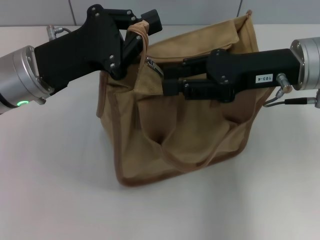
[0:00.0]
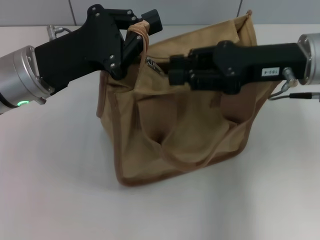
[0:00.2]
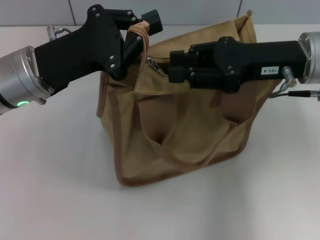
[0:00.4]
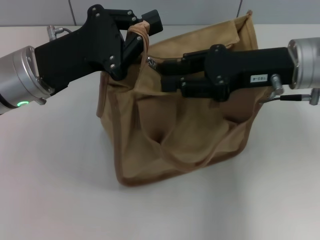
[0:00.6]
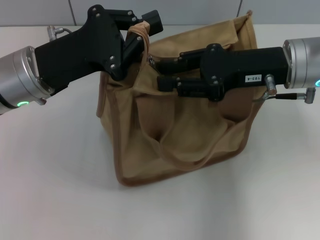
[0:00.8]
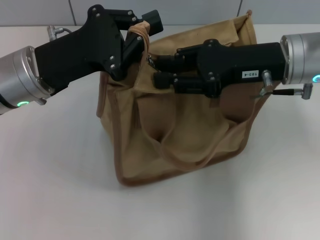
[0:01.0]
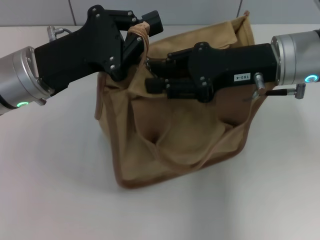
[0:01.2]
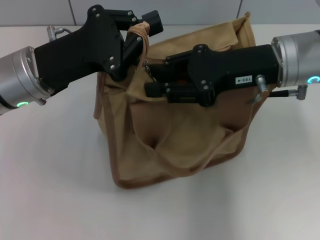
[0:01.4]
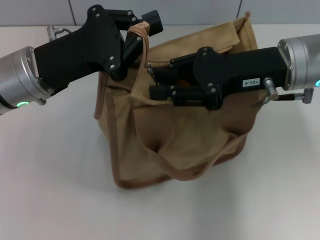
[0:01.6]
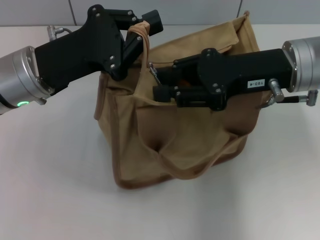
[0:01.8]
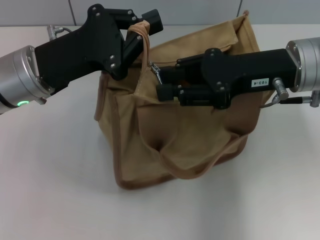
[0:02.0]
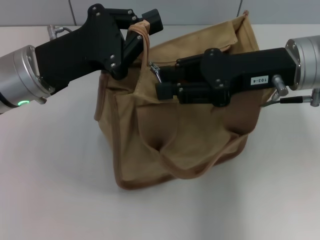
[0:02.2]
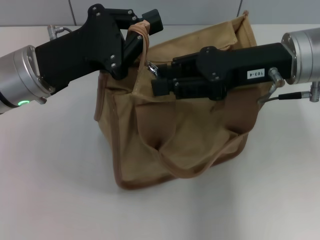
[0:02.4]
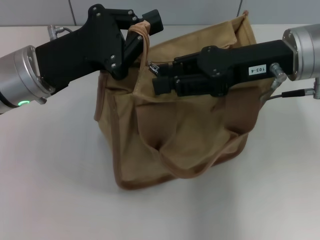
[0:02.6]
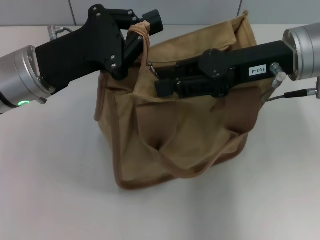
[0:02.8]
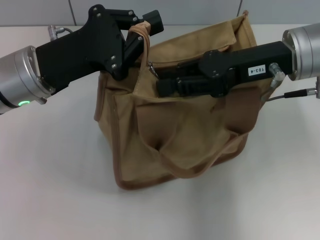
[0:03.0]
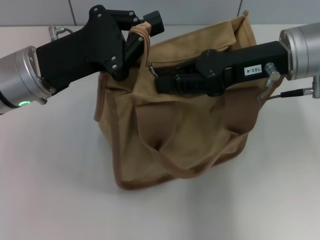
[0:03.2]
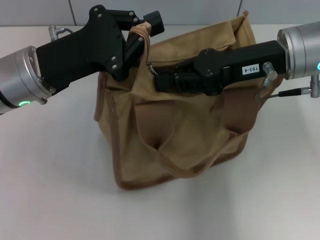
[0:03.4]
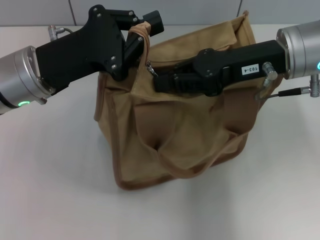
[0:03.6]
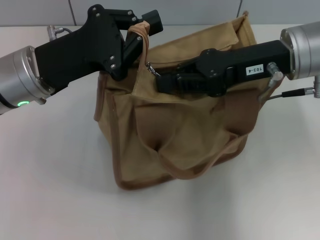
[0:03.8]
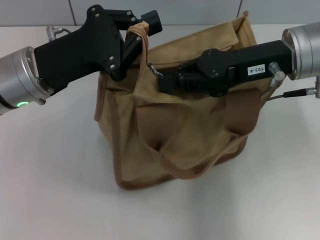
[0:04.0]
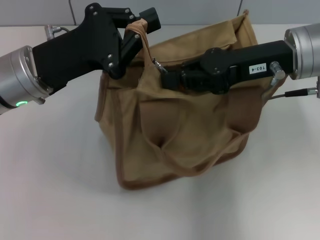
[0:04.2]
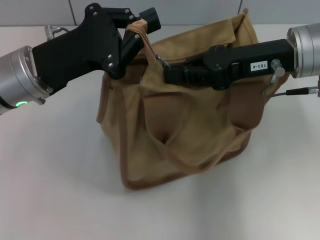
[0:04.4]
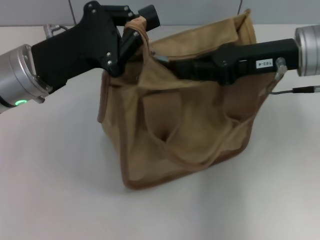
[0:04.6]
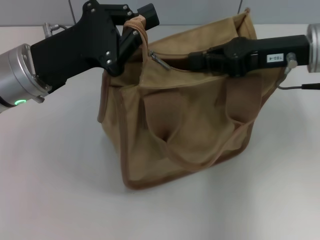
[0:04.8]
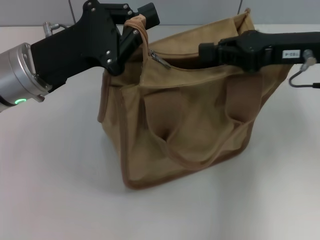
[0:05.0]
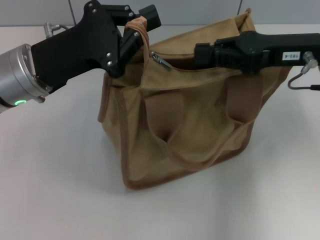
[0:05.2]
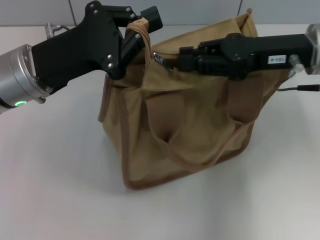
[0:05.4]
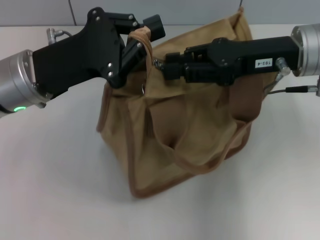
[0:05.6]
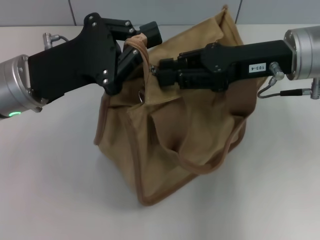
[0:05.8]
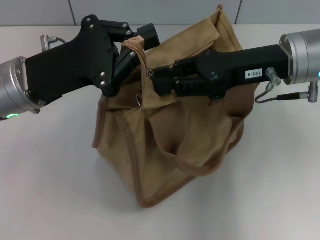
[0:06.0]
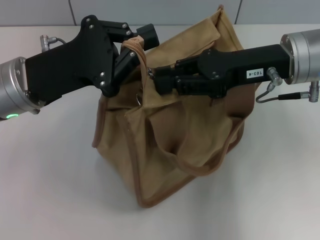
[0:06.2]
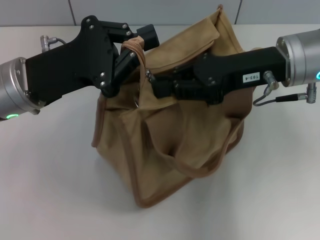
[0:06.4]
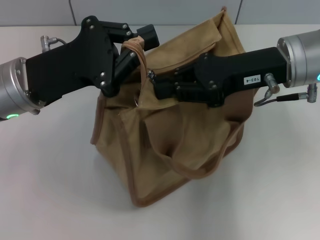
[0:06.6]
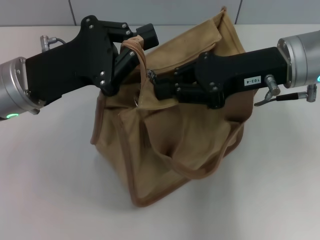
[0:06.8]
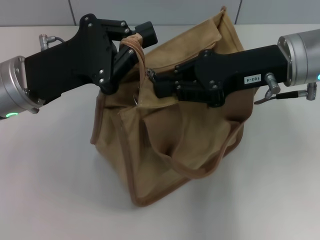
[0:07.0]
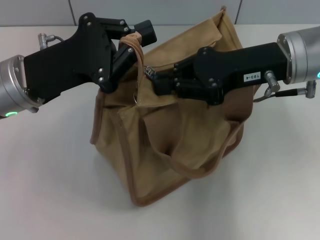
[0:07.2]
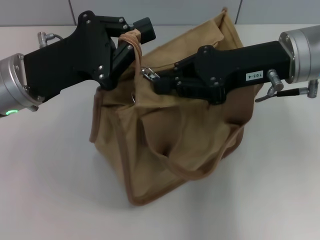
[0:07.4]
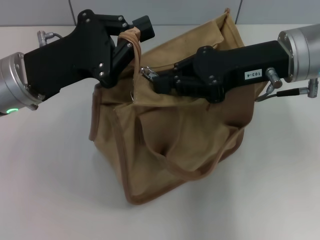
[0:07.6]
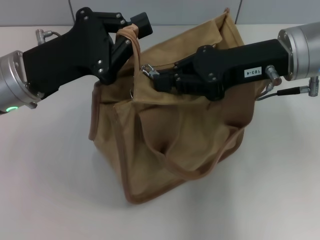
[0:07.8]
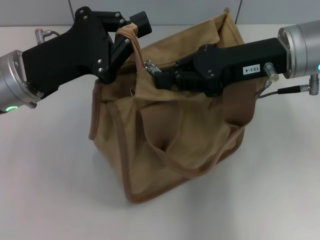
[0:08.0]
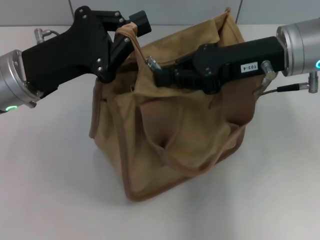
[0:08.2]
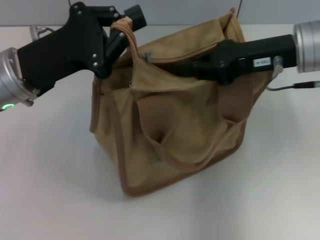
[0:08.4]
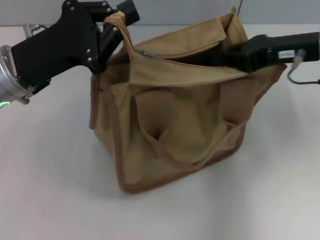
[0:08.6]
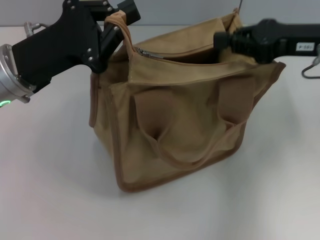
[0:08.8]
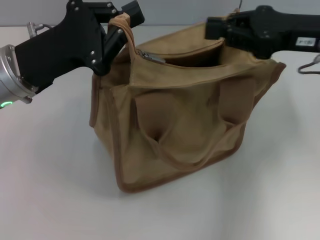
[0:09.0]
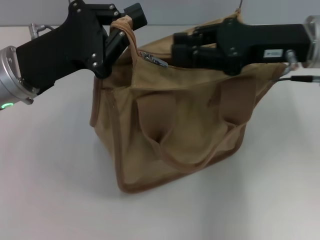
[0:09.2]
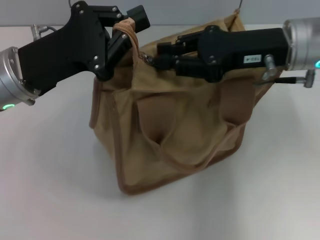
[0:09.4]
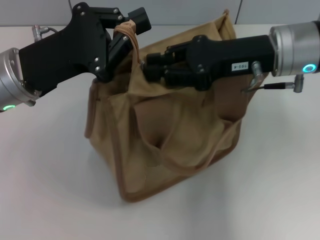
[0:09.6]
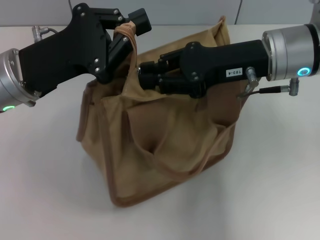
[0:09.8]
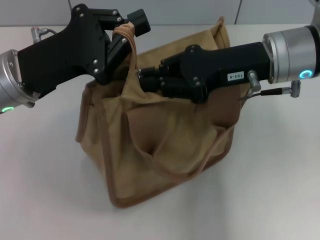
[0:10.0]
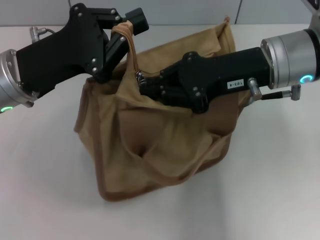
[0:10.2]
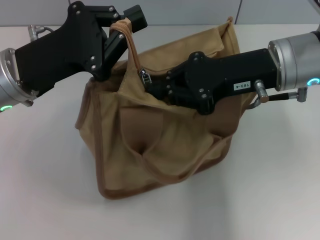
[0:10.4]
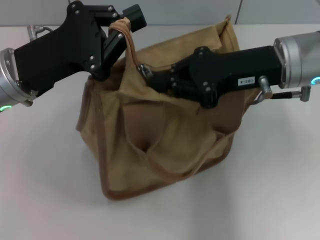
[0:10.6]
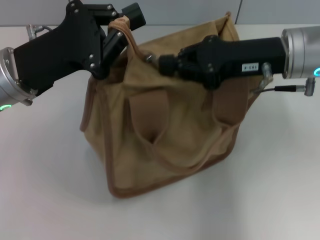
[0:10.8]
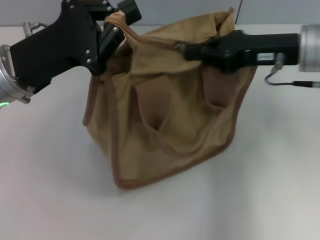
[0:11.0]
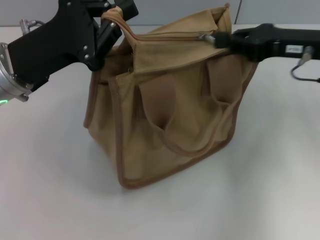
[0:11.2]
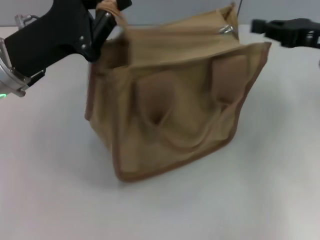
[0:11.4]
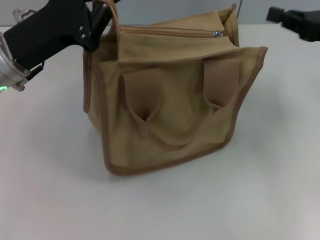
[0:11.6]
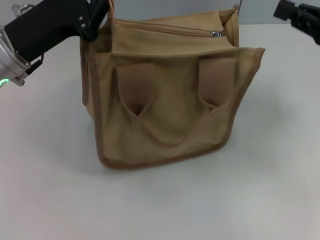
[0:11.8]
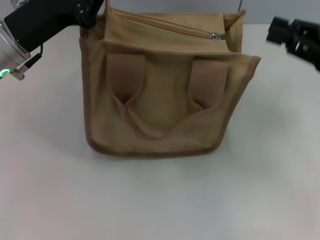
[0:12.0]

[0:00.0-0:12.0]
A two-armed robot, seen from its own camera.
Step, 0:00.0 to 0:12.0: Pull up the zipper with your right hand.
0:00.0 to 0:03.0: The grippers stay close to where they were, moving slightly.
0:03.0 to 0:04.4: The right gripper closes.
0:04.4 to 0:06.0: The right gripper opens its fingers.
0:06.0 to 0:07.6: The right gripper closes.
0:07.6 to 0:09.0: The right gripper goes approximately 5 cm to the right.
0:09.0 to 0:10.4: The right gripper is displaced to the left by approximately 5 cm.
0:10.4 to 0:12.0: The right gripper travels to the right by approximately 15 cm.

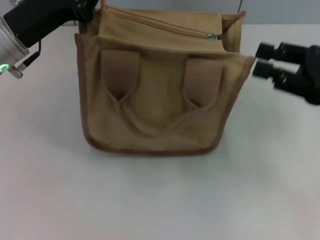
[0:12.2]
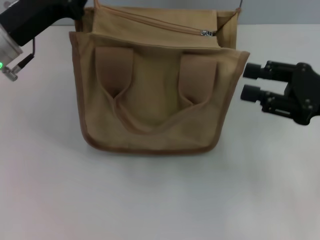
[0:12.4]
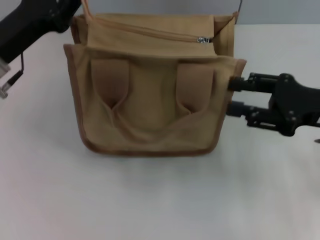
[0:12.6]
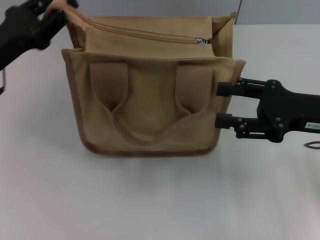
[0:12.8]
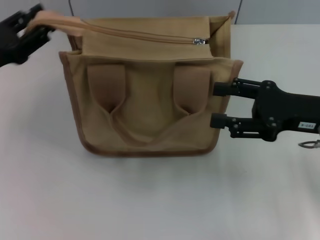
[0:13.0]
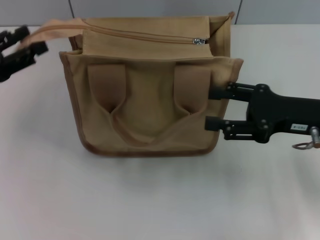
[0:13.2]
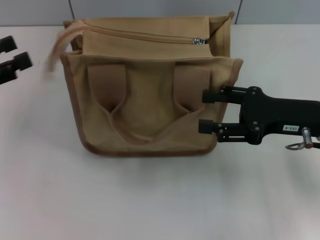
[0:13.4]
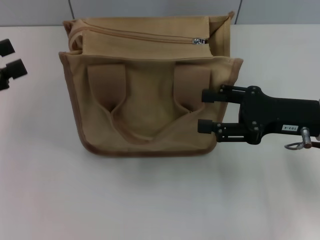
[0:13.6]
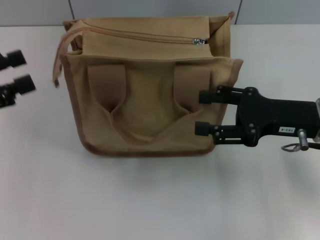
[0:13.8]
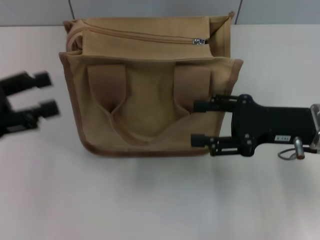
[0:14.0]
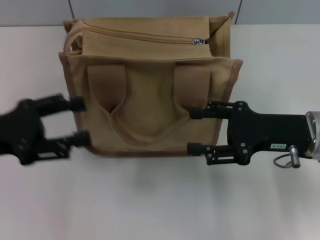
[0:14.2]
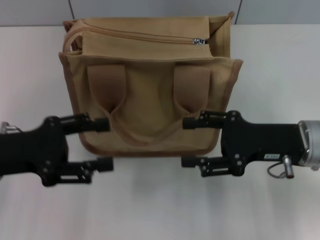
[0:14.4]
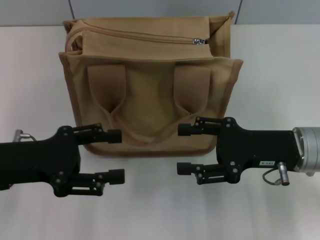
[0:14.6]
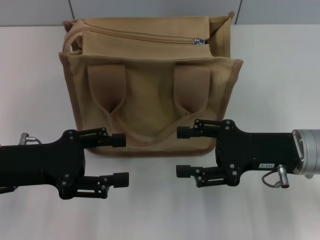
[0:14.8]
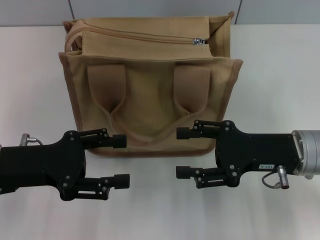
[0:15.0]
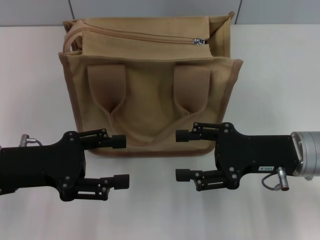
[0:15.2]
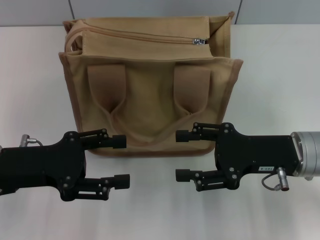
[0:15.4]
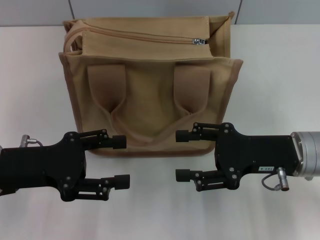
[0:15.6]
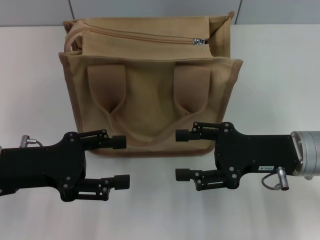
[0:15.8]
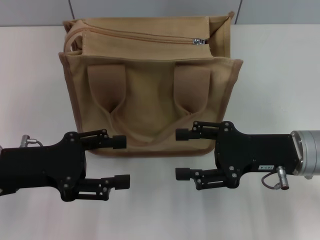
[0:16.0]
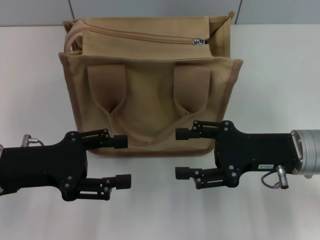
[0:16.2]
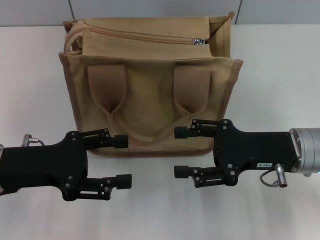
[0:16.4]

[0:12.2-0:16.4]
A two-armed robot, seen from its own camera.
Step, 0:12.2 to 0:13.2: Grab the zipper with your left hand.
0:12.2 to 0:13.6: The left gripper heads to the left and backward, covering roughly 15 cm, and opens; the right gripper shifts some 5 cm to the left, and opens up.
0:13.6 to 0:15.0: The left gripper heads to the right and downward, covering some 10 cm.
0:15.0 to 0:16.4: Both grippers stay put.

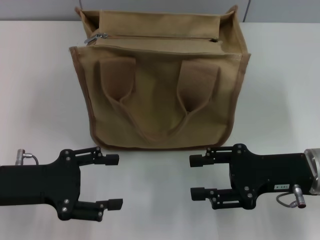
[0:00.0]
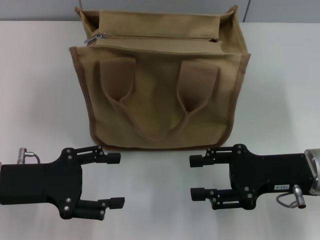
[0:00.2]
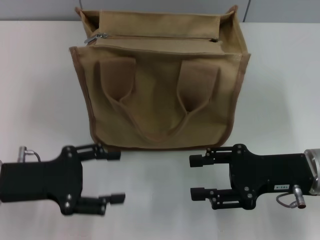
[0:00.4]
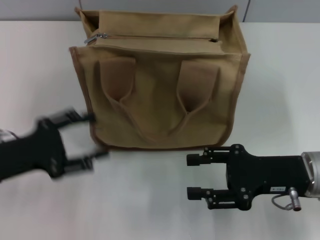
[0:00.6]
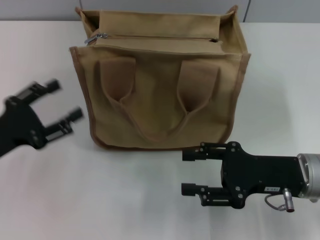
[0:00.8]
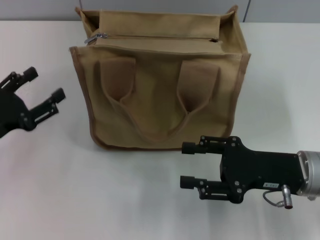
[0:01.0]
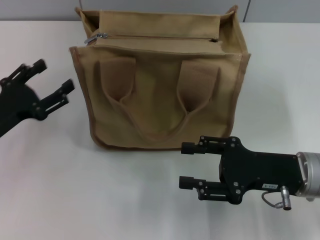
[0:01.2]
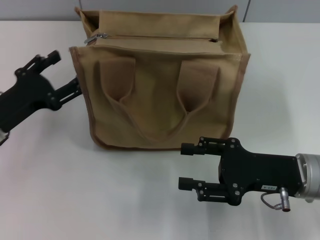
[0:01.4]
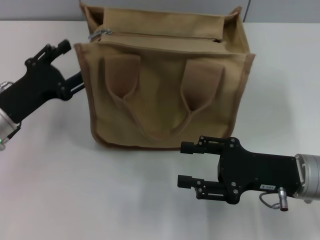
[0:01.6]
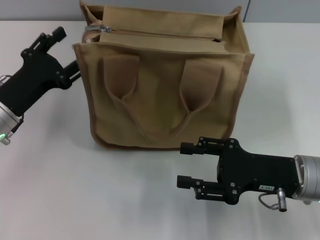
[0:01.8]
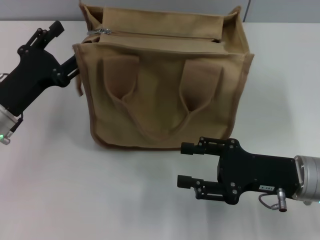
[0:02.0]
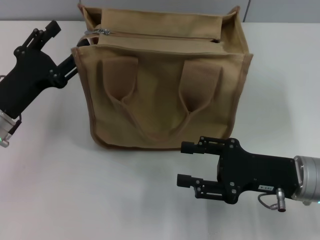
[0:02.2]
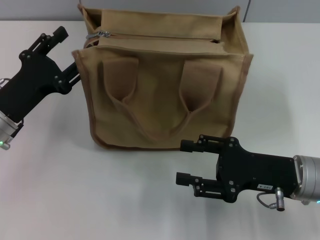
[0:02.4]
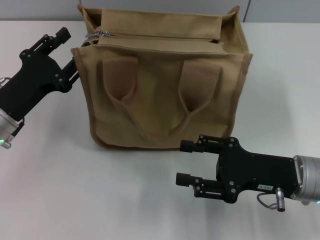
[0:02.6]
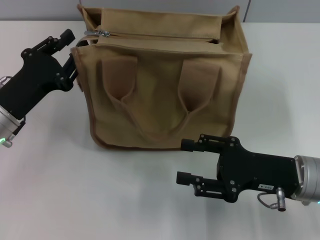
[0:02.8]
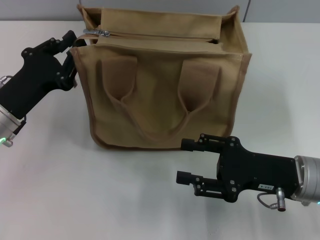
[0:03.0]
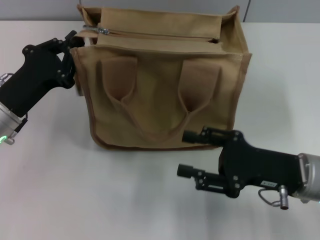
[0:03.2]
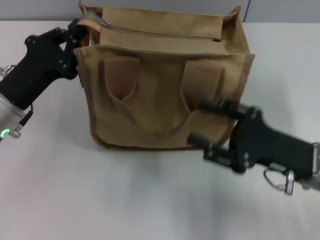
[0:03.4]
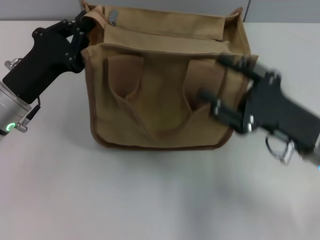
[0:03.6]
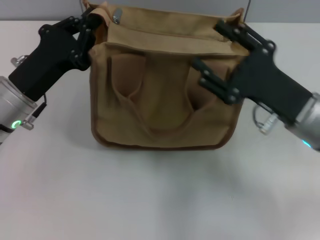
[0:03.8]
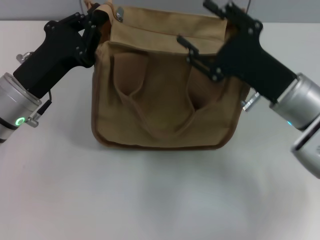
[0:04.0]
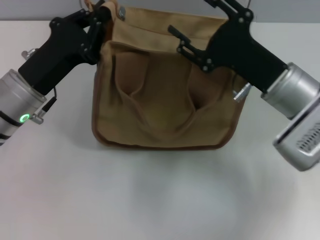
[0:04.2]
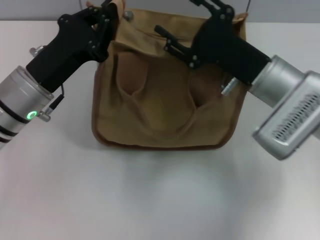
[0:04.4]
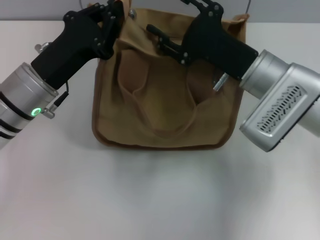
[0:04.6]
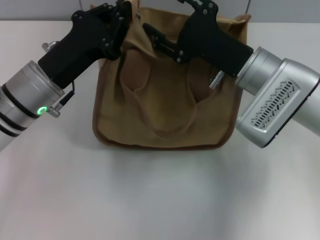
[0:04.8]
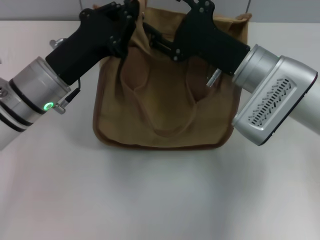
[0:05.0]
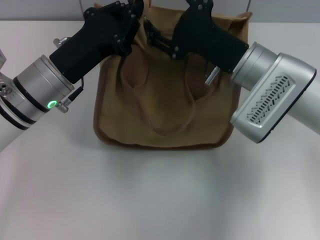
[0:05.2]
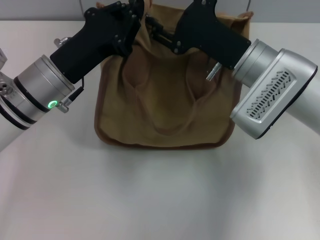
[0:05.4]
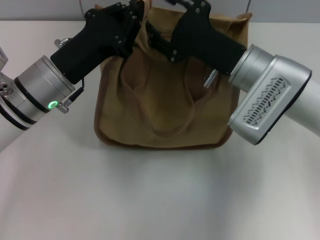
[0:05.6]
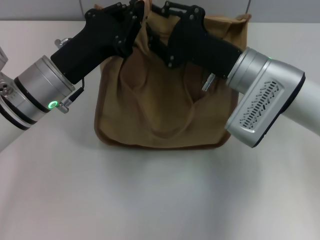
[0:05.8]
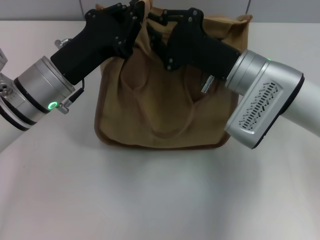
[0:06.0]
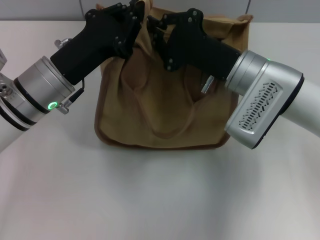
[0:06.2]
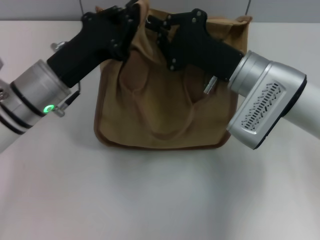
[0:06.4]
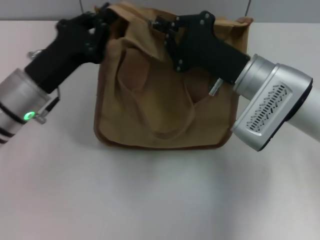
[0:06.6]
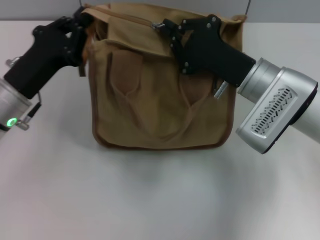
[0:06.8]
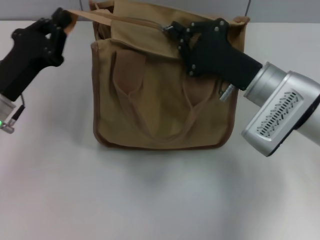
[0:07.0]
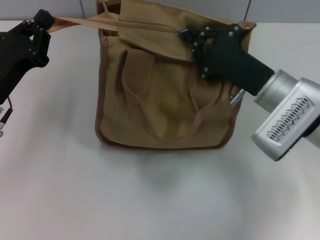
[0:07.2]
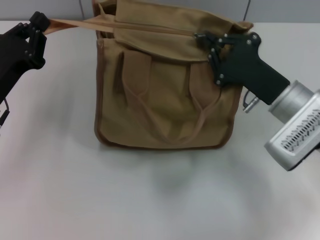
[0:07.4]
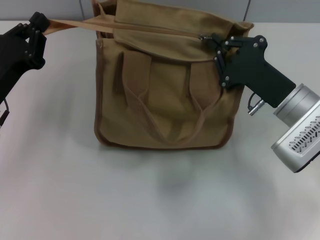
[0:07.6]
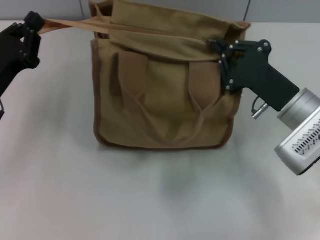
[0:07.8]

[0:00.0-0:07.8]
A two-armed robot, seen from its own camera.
0:00.0 to 0:01.6: The left gripper moves forward, about 5 cm.
0:01.6 to 0:03.2: The left gripper closes up.
0:03.2 to 0:04.6: The right gripper moves forward and to the left, roughly 10 cm. Meanwhile the left gripper goes roughly 5 cm to the right.
0:04.6 to 0:06.2: The right gripper closes.
0:06.2 to 0:07.8: The left gripper is displaced to the left by approximately 10 cm. The right gripper shifts about 10 cm to the right.
